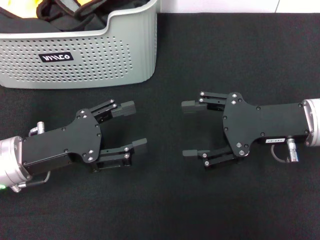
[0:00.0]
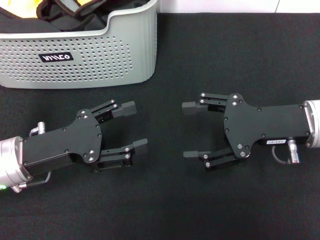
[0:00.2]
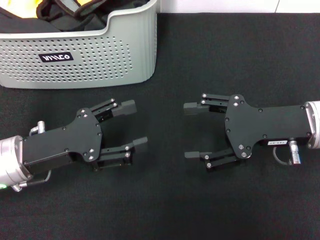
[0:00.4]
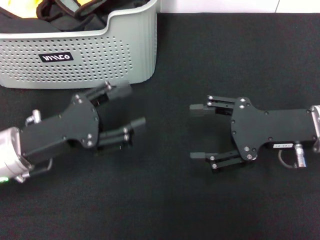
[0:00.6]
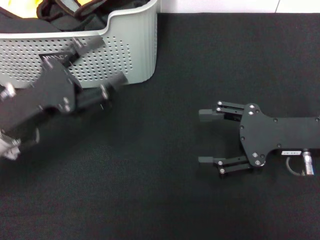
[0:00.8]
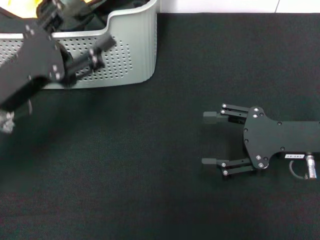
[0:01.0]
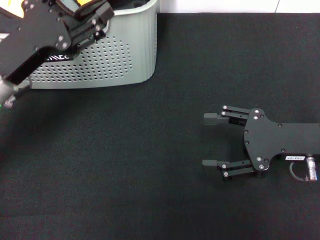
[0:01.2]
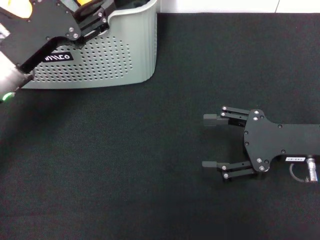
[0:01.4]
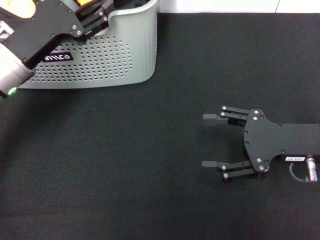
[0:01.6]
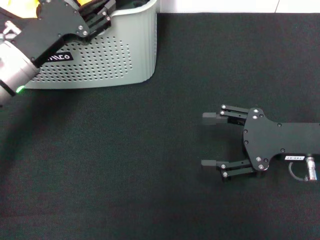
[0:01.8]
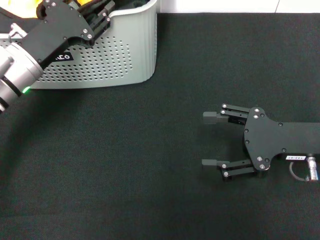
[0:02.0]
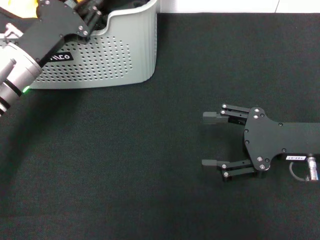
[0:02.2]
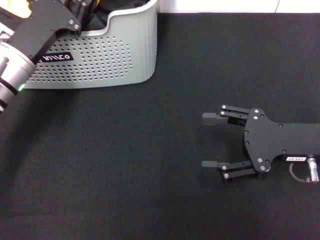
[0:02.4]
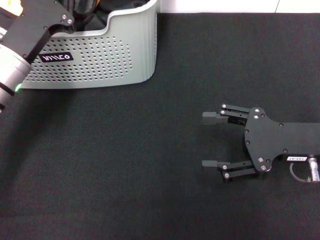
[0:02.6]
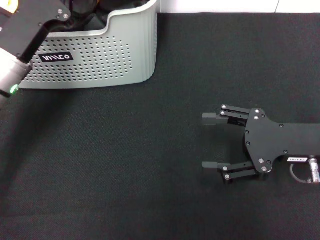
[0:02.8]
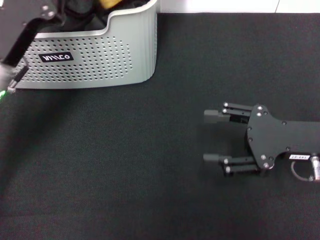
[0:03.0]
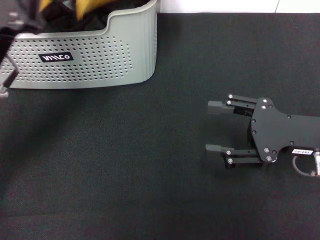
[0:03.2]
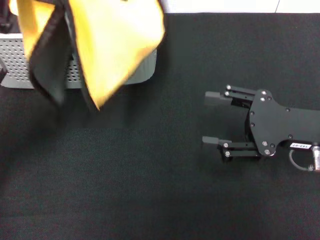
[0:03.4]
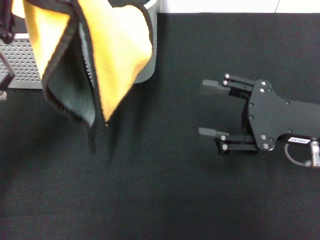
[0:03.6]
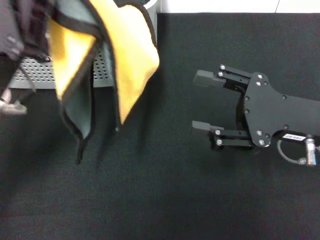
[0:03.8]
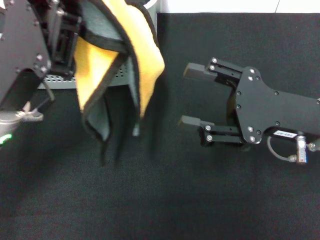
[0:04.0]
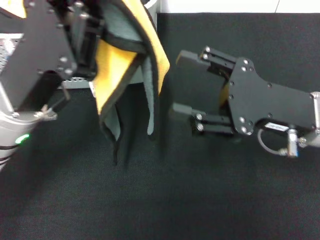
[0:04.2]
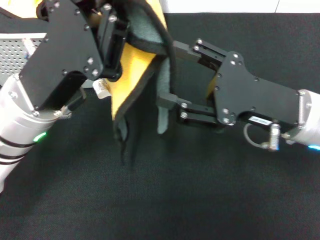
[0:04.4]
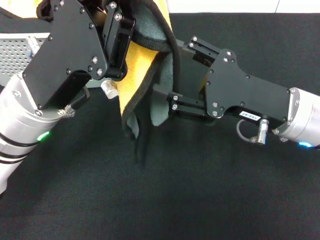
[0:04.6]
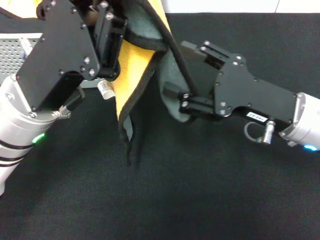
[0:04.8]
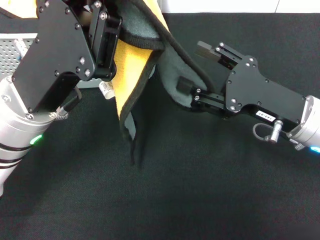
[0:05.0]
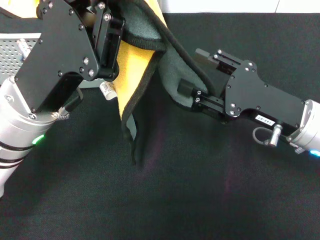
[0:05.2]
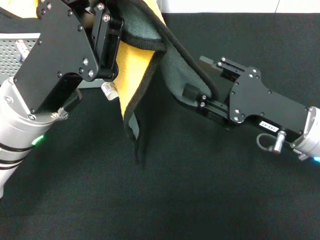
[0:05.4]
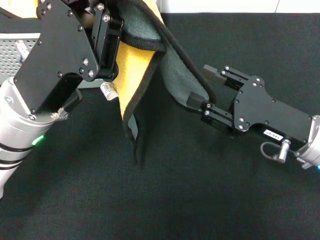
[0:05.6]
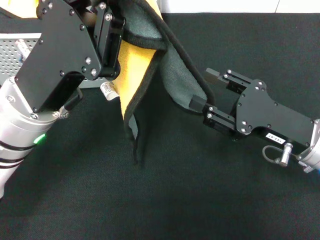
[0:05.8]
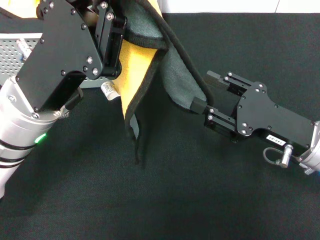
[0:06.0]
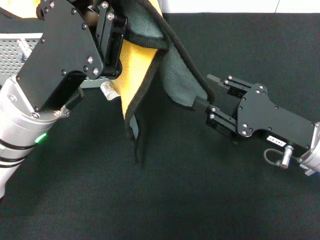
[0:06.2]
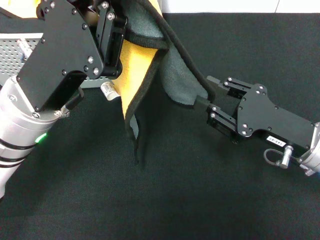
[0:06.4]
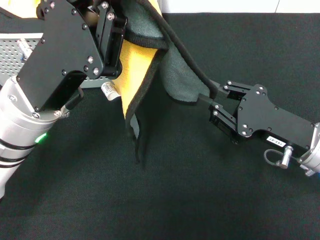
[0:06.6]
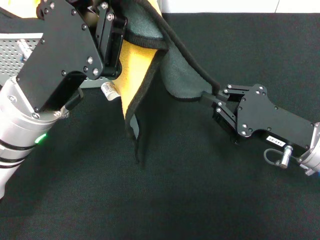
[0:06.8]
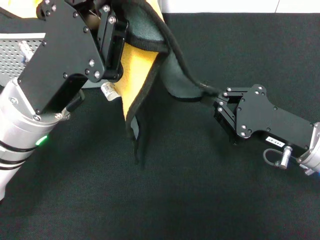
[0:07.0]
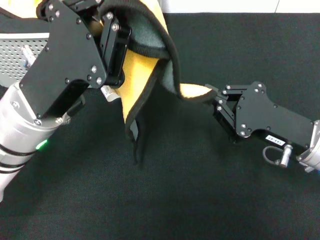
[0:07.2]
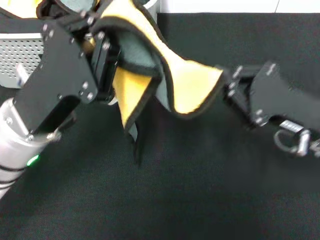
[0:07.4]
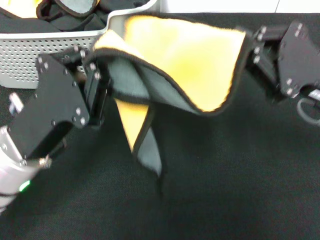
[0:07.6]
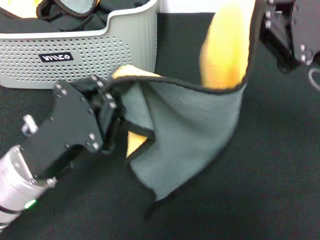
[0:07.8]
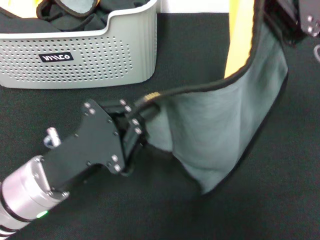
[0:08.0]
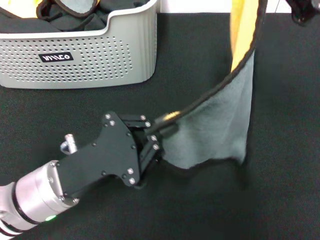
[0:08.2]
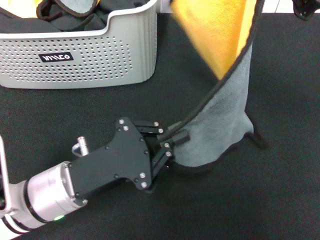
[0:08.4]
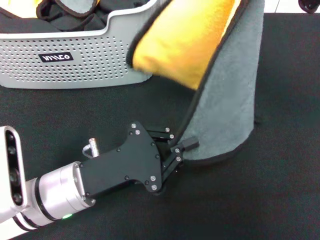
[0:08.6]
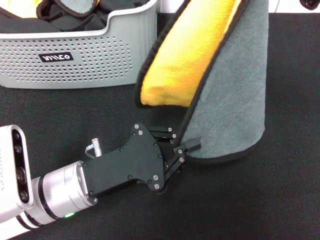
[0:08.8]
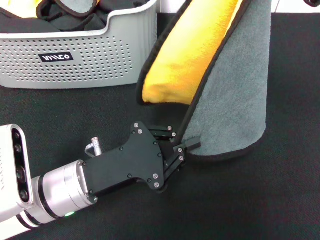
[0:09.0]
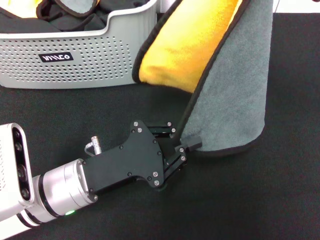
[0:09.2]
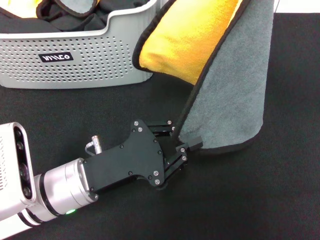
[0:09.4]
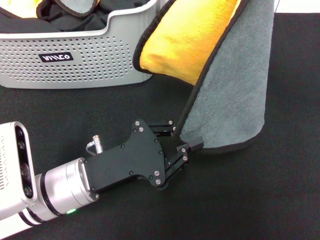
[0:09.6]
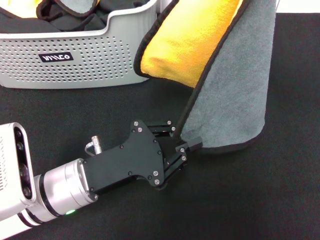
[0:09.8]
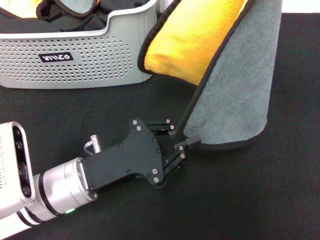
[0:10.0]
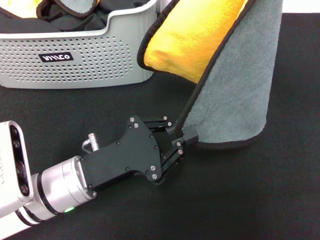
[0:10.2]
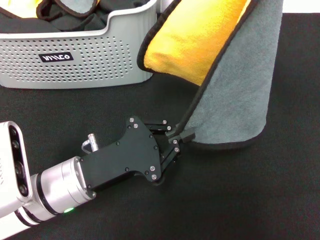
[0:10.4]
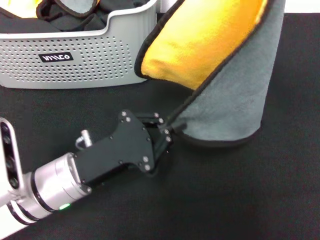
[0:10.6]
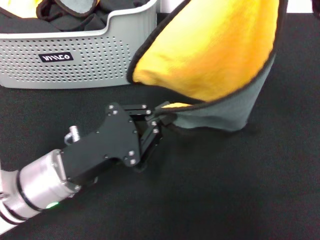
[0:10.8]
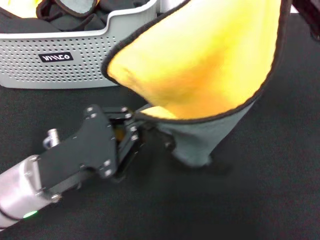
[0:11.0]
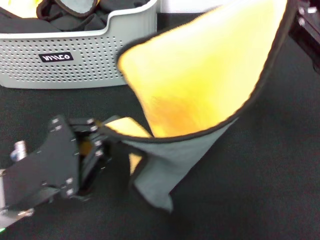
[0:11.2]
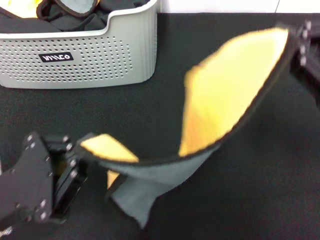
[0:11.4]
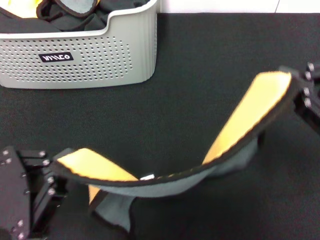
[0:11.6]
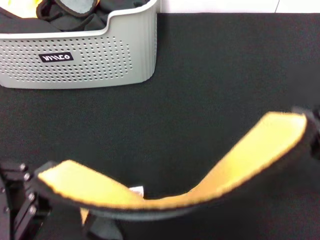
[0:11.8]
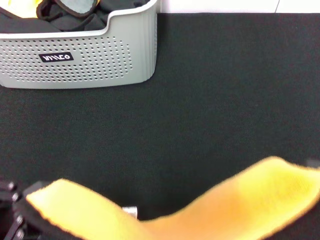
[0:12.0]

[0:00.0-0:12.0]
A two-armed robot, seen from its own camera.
Task of the whole recording: pick up the towel from the storage box and lay it flat on the black tablecloth.
Step, 0:00.0 to 0:02.6: Pick up a towel with the left gripper.
Step, 0:02.8 to 0:06.8: Spread the towel flat with the left gripper.
0:00.0 to 0:01.6: The left gripper travels forward by about 10 cm.
0:01.6 to 0:03.0: The left gripper closes its fingers.
0:03.0 to 0:04.4: The left gripper is displaced to the right by approximately 5 cm, while the right gripper is displaced to the left by some 5 cm.
0:04.4 to 0:06.0: The right gripper is displaced downward by about 5 cm.
0:06.0 to 0:07.6: The right gripper shifts some 10 cm upward, and closes its fingers. The left gripper changes place by approximately 5 cm.
0:07.6 to 0:09.0: The right gripper goes approximately 5 cm upward. The left gripper ends up roughly 5 cm from where it was.
0:09.0 to 0:10.4: Both grippers stay about where they are.
0:10.4 to 0:12.0: The left gripper travels backward, to the left and upward by roughly 15 cm; the right gripper travels backward by approximately 15 cm.

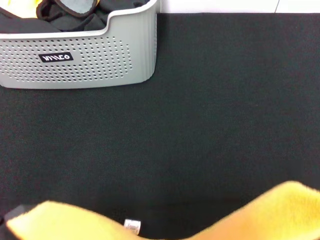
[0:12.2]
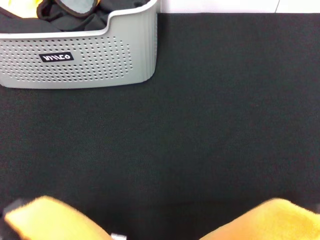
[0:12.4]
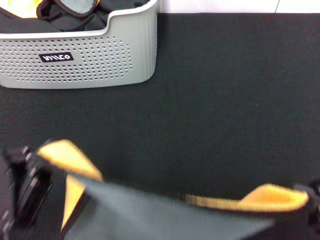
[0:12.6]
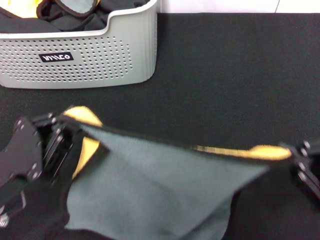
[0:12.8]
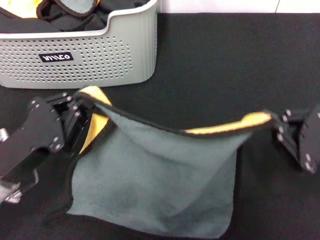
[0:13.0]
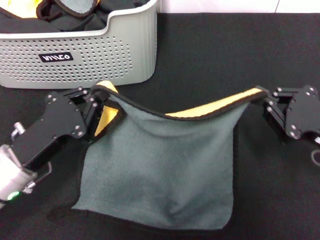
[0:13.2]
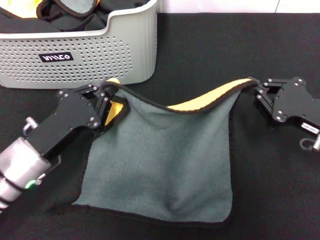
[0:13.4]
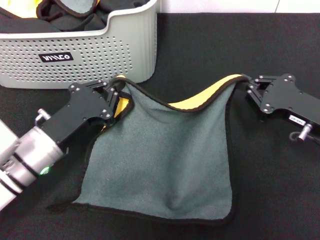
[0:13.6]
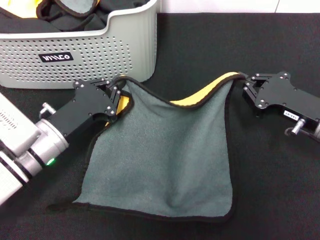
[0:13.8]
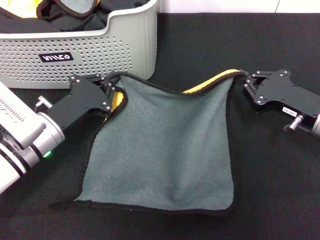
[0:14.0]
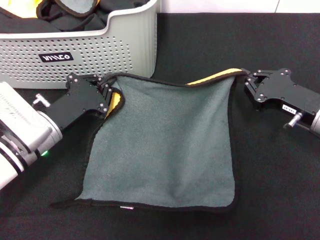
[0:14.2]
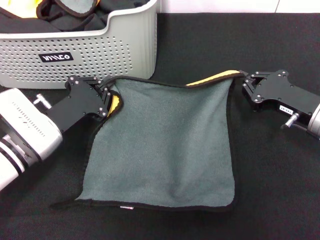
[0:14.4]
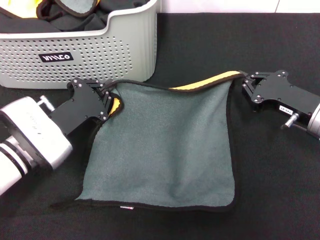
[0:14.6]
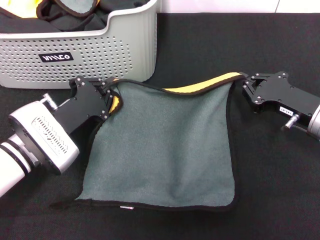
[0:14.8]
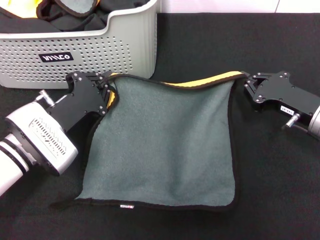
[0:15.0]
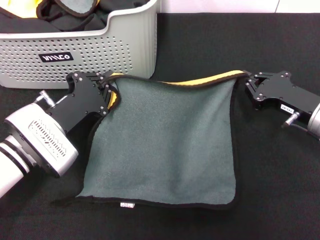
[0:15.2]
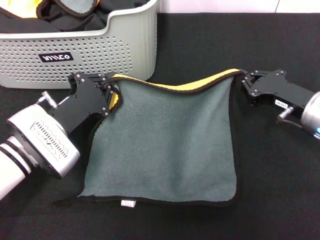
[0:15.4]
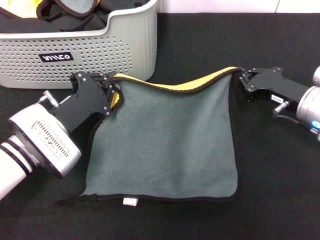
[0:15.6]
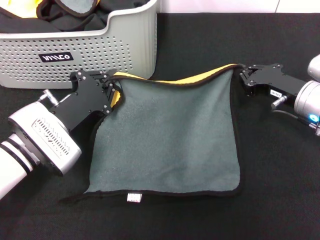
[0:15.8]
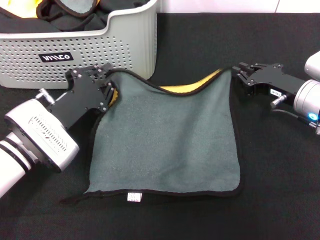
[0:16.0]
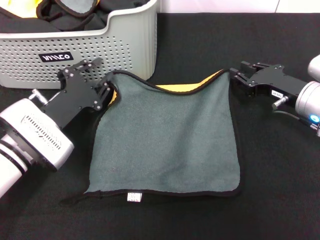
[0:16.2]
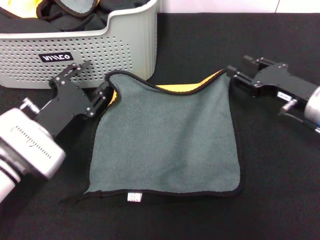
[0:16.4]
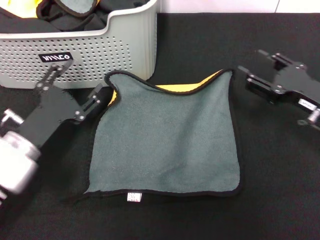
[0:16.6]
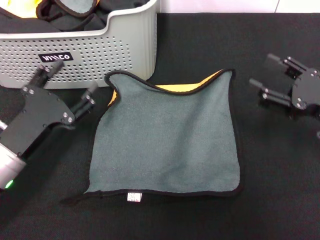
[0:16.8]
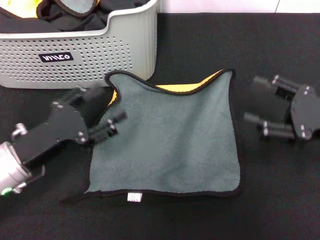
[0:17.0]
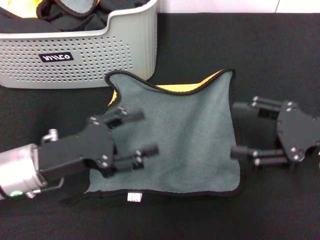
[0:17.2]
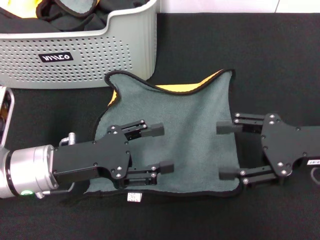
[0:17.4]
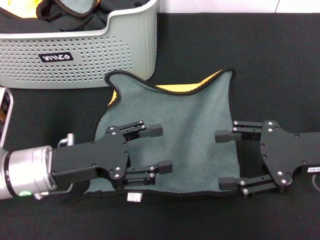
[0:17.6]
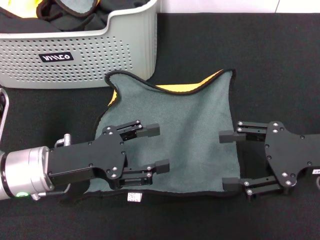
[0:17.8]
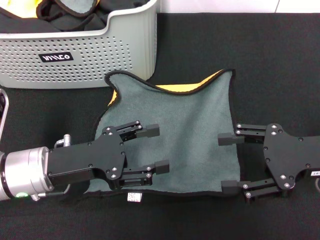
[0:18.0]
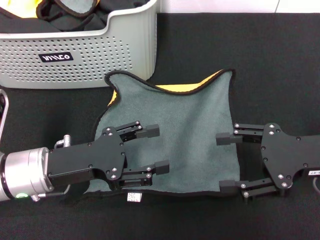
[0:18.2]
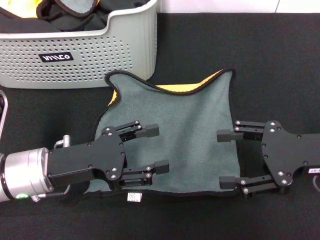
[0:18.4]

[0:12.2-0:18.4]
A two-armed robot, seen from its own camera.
Task of the whole recording: pick up the towel from the storage box and lay it flat on the black tablecloth.
Step, 0:12.2 to 0:16.0: Spread the towel flat with the right gripper.
0:12.2 to 0:13.8: The two grippers go approximately 20 cm forward and downward.
0:15.4 to 0:16.8: The left gripper is displaced backward by about 5 cm, and opens. Meanwhile the right gripper ends up some 5 cm from where it was, and opens its fingers.
0:16.8 to 0:18.4: The right gripper moves some 5 cm.
